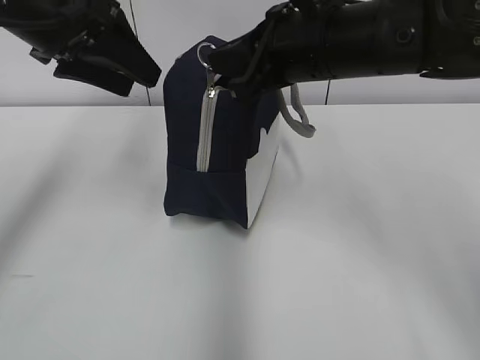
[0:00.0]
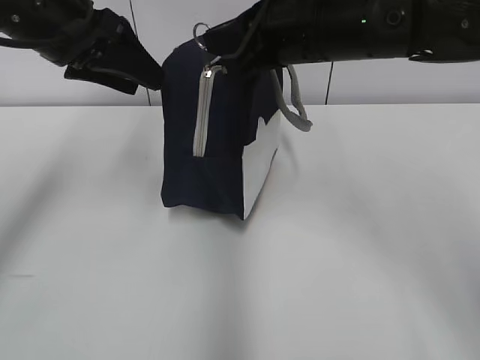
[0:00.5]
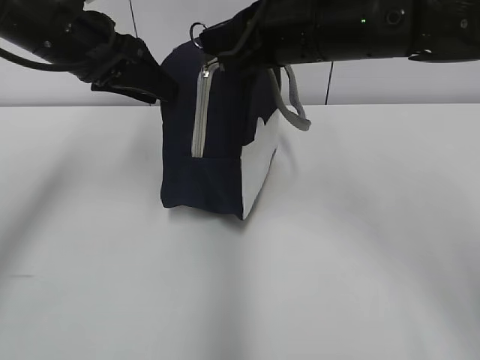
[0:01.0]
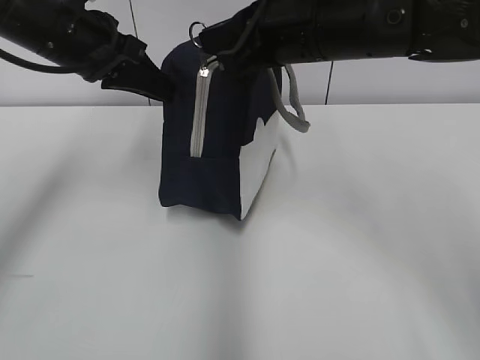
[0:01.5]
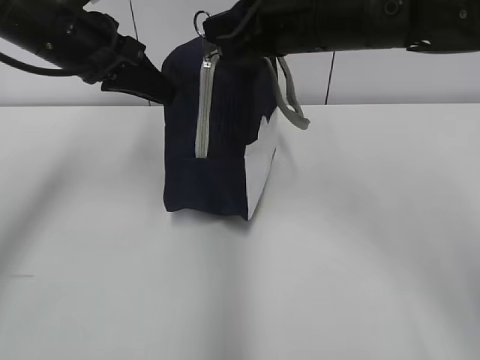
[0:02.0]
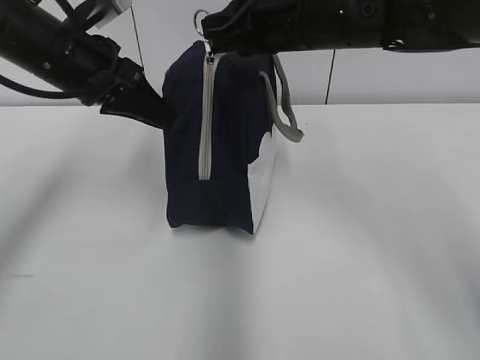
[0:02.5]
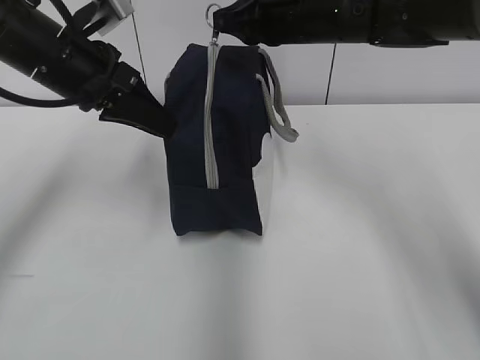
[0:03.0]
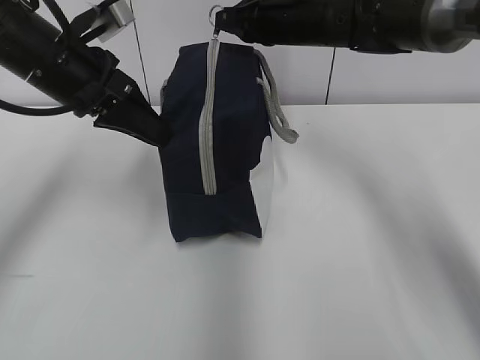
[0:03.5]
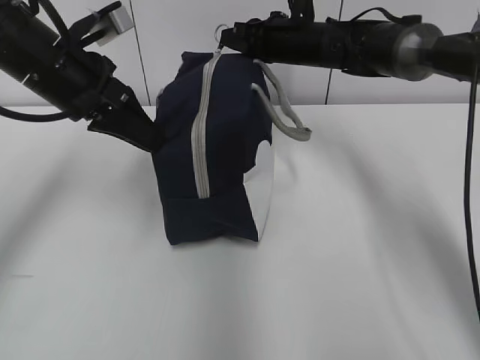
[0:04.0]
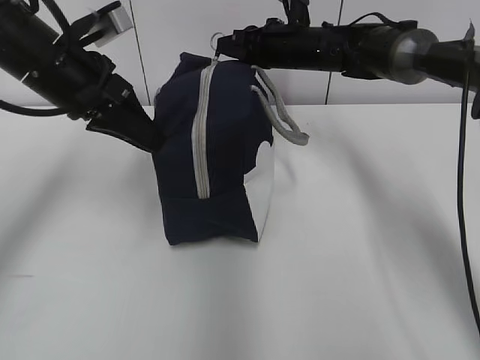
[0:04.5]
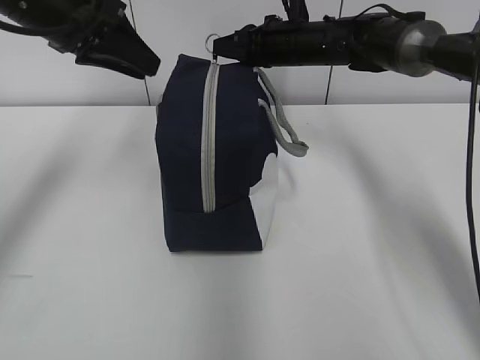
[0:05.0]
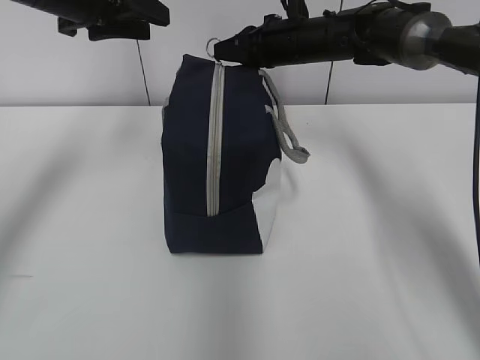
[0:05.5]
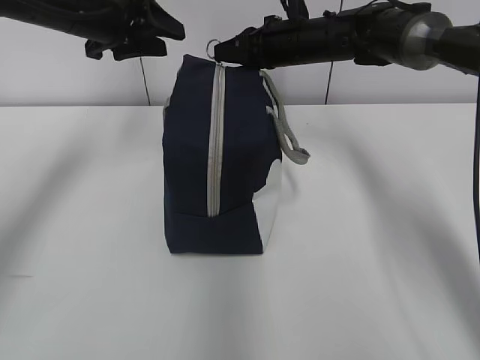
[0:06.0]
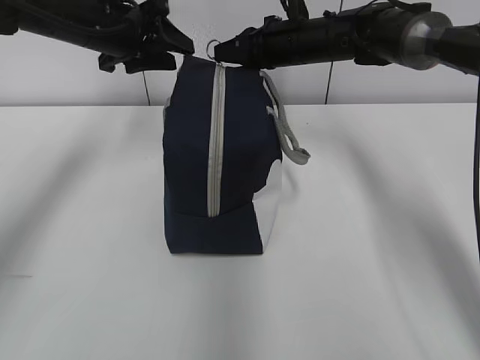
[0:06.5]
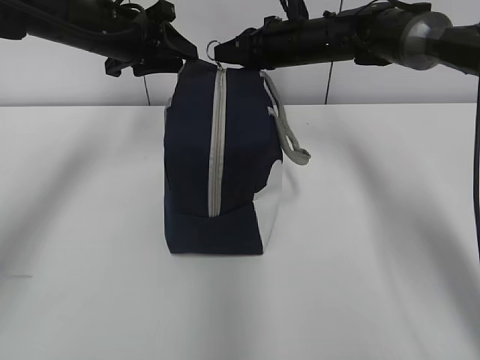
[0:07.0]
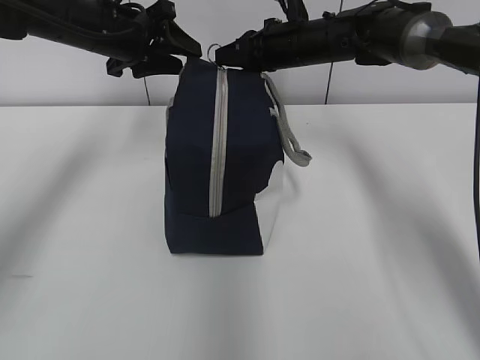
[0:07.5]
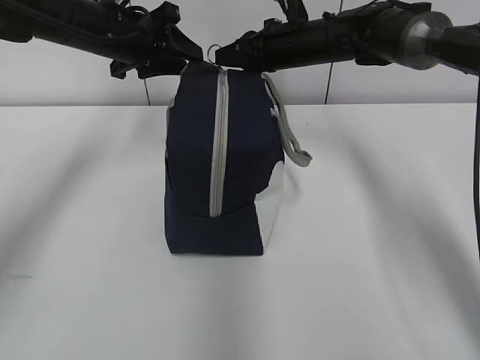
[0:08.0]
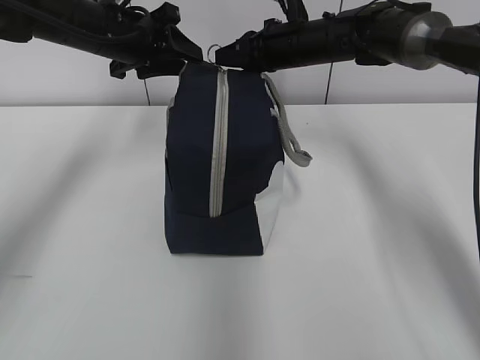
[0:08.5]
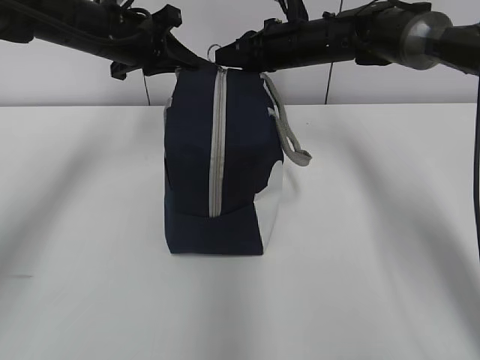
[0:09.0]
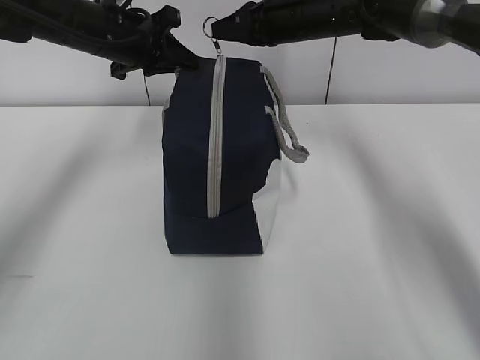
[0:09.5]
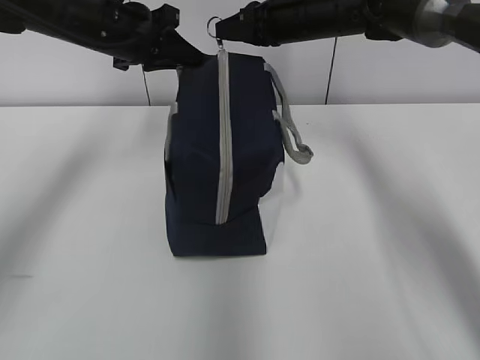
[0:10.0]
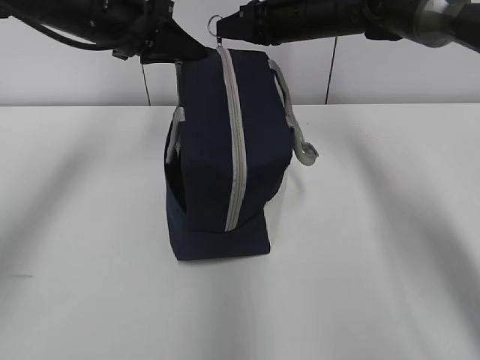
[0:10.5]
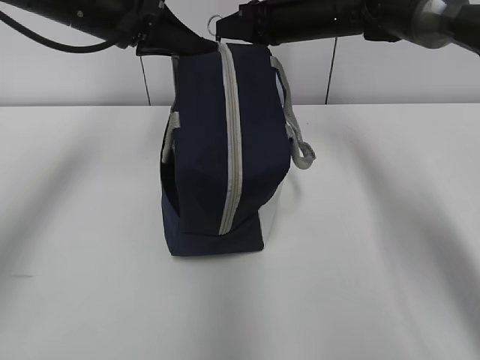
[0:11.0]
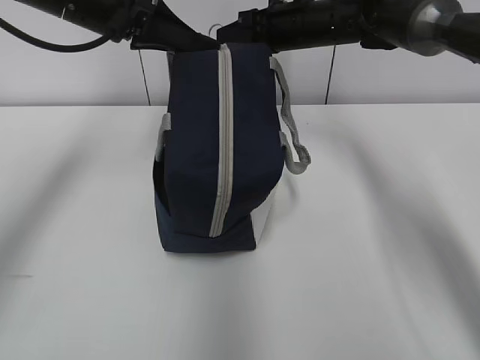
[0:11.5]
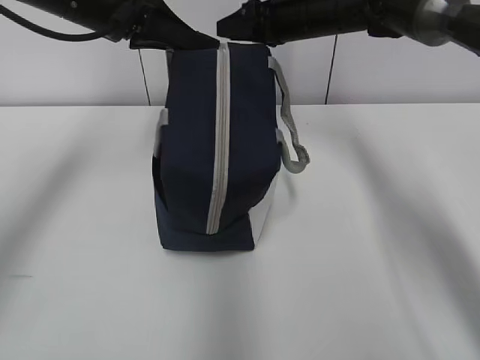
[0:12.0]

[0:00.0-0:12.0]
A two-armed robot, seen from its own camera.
0:00.0 to 0:02.0: The left gripper changes place by some 5 cm, and closes its fingers.
0:02.0 to 0:04.0: The right gripper is displaced forward and downward by some 20 cm.
0:04.0 to 0:06.0: The left gripper goes about 10 cm forward, and opens its fingers.
0:06.0 to 0:08.0: There are only small adjustments of the grippers.
0:08.0 to 0:10.0: The left gripper closes.
0:10.0 to 0:12.0: The left gripper changes place by roughly 5 cm, while the right gripper opens its fingers.

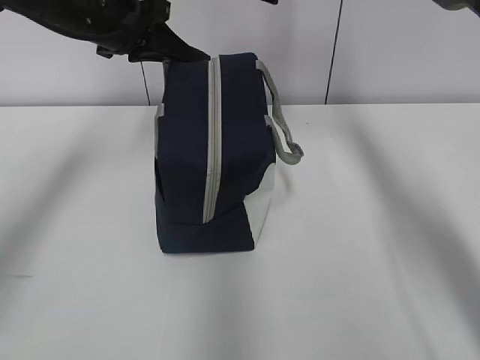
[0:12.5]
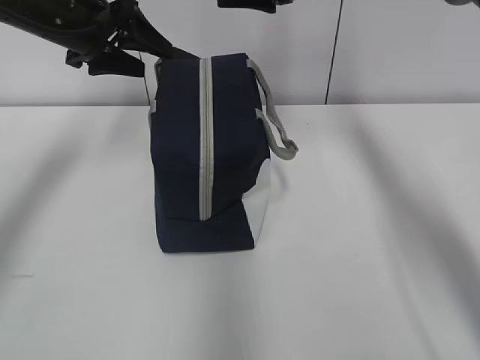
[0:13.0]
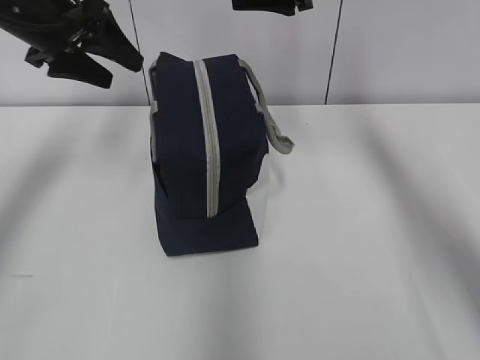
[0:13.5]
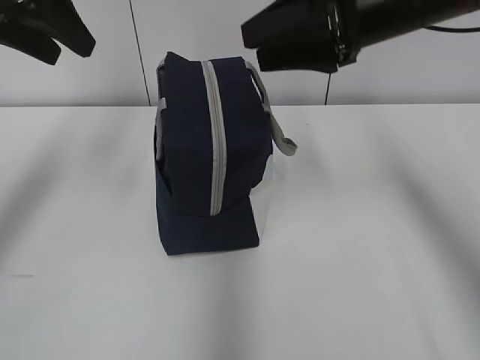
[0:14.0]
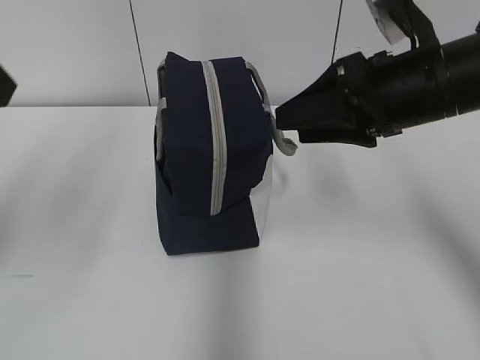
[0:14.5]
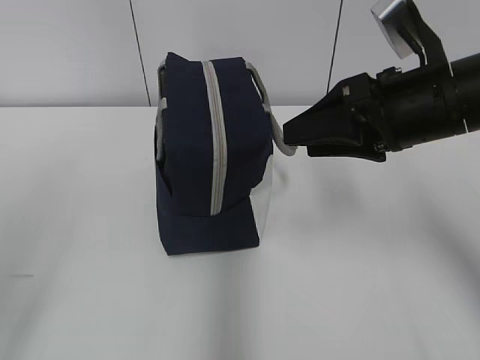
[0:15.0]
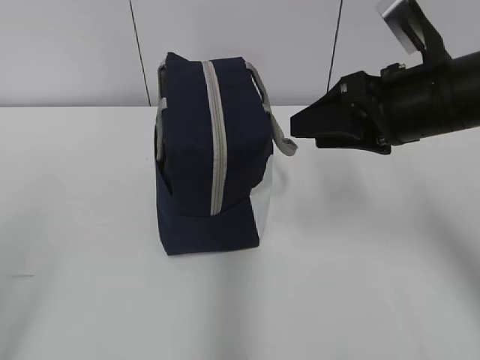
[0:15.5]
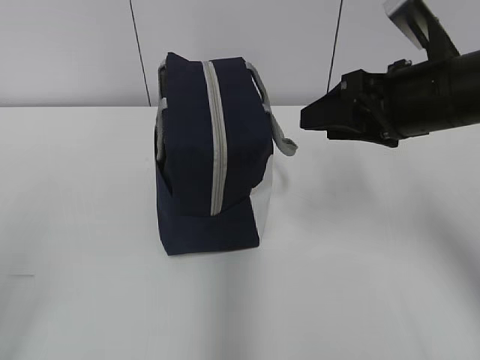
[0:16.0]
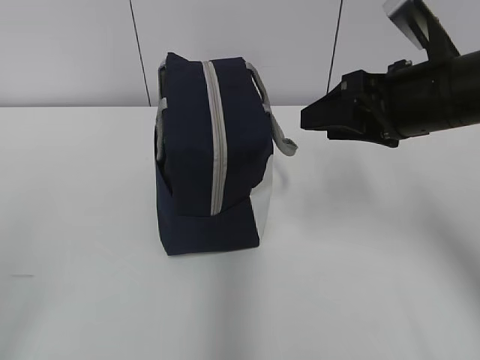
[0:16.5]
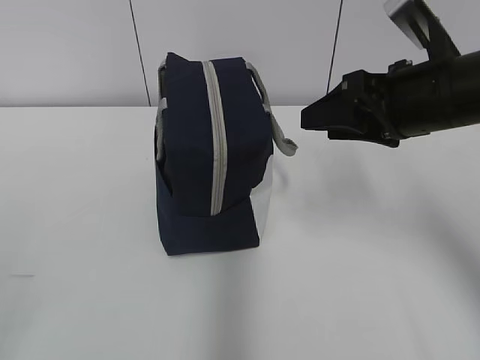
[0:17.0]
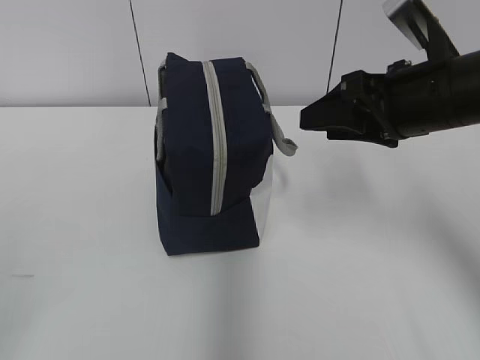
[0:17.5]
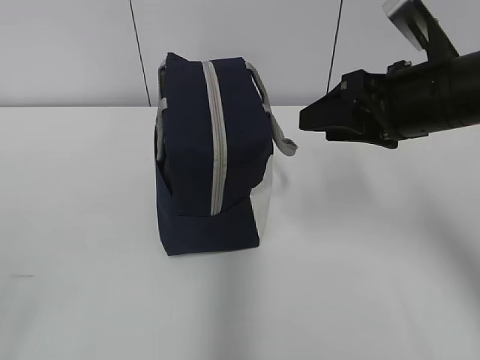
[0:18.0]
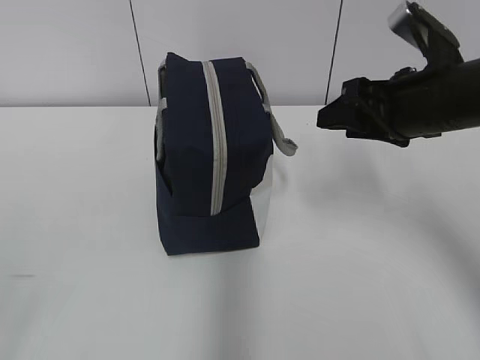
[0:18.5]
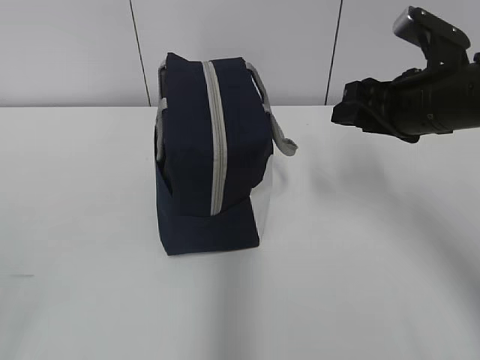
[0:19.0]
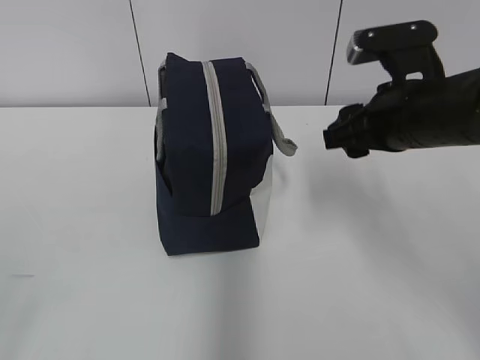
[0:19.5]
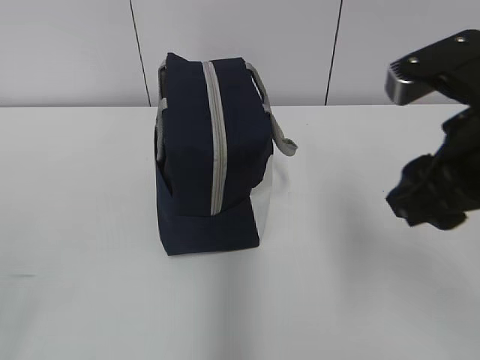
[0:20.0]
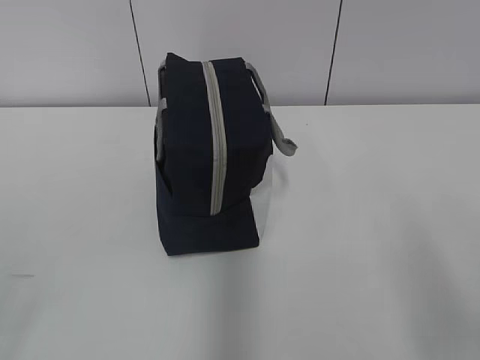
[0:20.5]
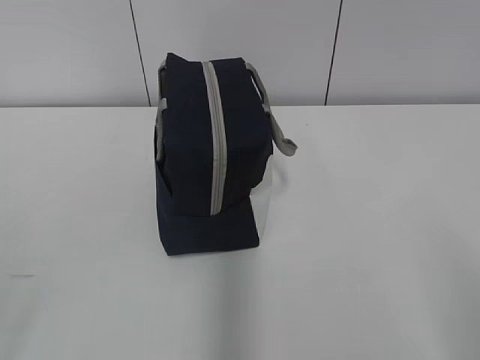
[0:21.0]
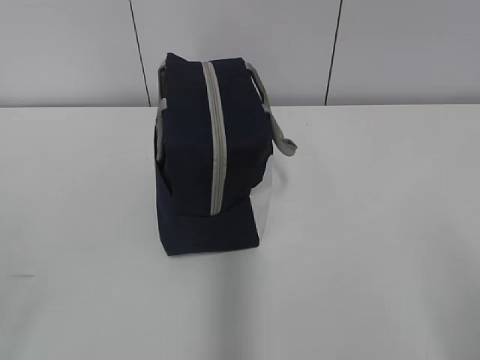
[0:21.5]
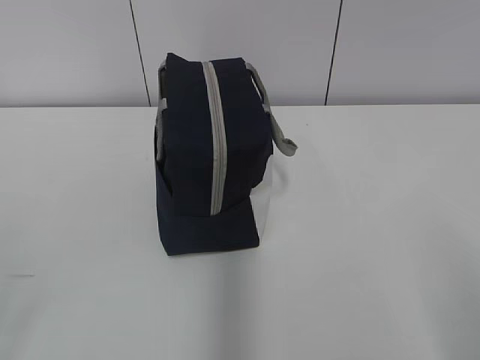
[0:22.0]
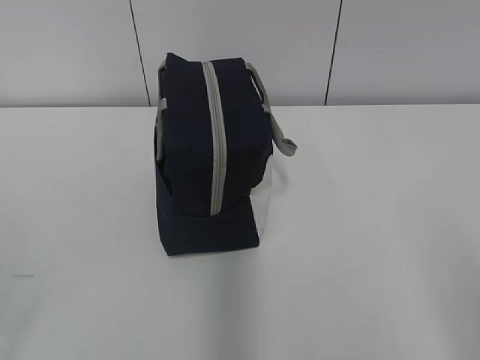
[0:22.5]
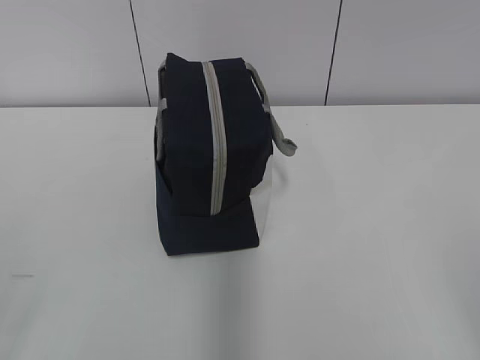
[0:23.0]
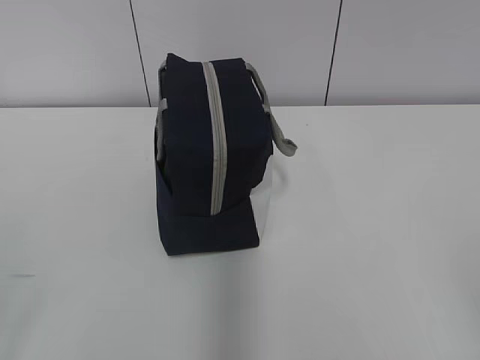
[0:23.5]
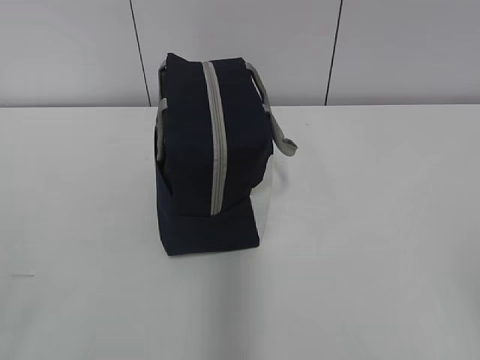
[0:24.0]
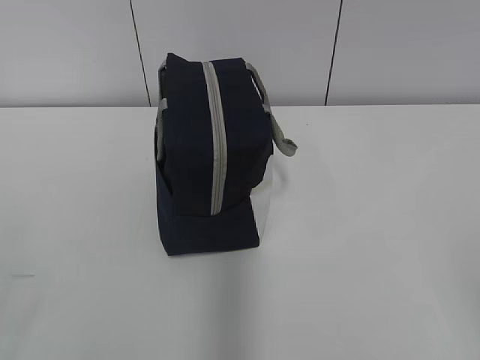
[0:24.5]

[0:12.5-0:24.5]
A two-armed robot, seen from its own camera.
0:12.5 to 0:14.5: The left gripper goes approximately 25 cm backward, upward and to the left, and opens up; the right gripper is displaced backward by about 20 cm.
0:14.5 to 0:16.5: The left gripper heads backward and downward, covering some 25 cm.
0:16.5 to 0:18.5: The grippers move only a little.
0:18.5 to 0:20.5: The right gripper heads backward, covering some 25 cm.
0:20.5 to 0:22.5: The right gripper heads backward, covering roughly 5 cm.
